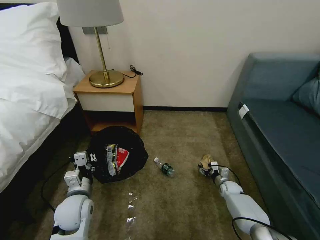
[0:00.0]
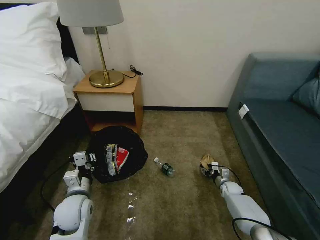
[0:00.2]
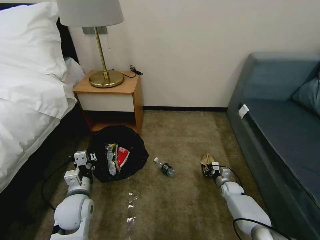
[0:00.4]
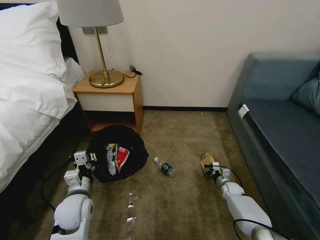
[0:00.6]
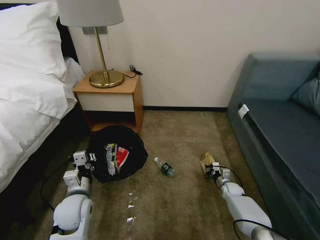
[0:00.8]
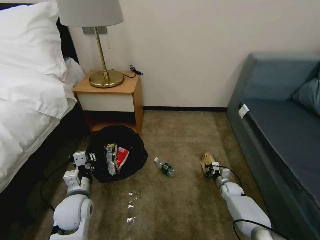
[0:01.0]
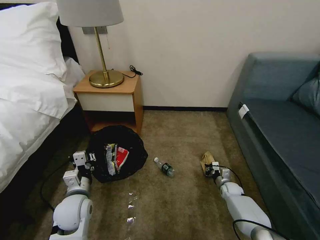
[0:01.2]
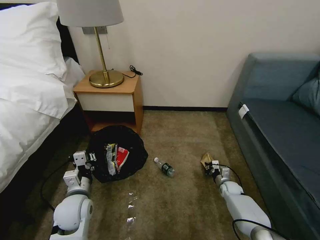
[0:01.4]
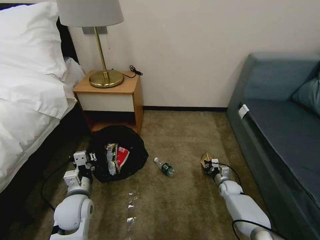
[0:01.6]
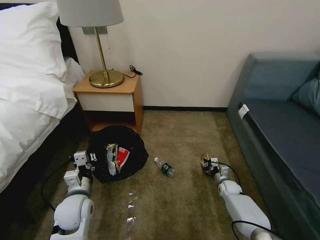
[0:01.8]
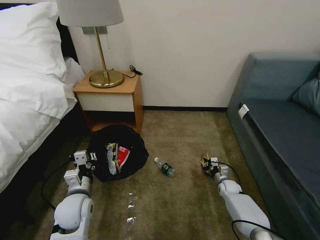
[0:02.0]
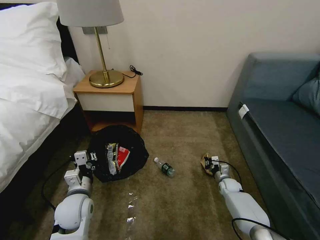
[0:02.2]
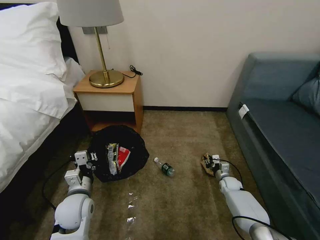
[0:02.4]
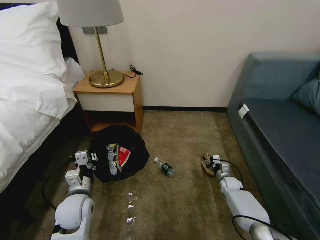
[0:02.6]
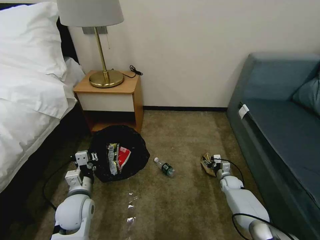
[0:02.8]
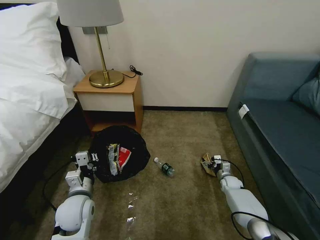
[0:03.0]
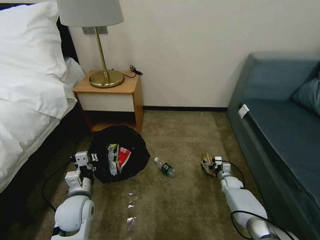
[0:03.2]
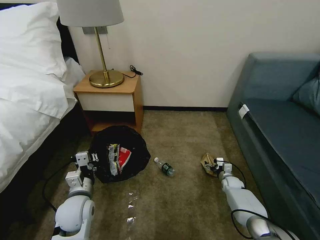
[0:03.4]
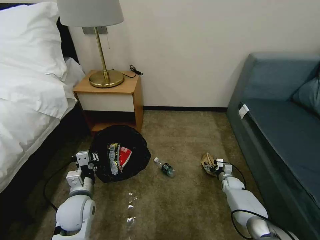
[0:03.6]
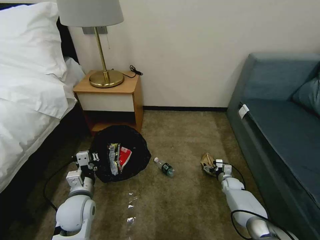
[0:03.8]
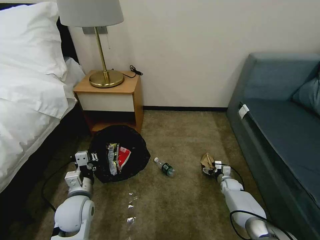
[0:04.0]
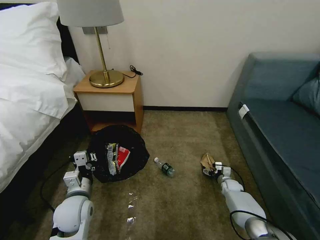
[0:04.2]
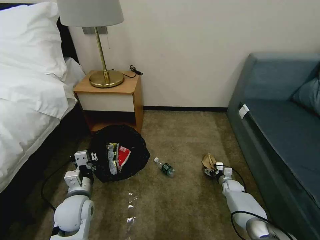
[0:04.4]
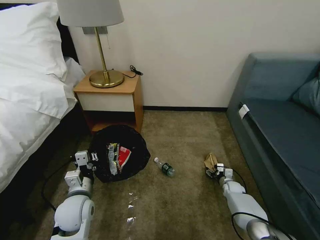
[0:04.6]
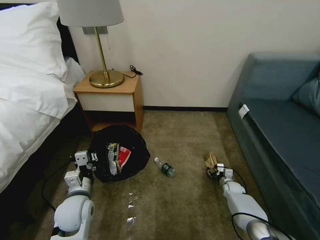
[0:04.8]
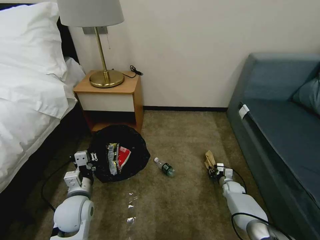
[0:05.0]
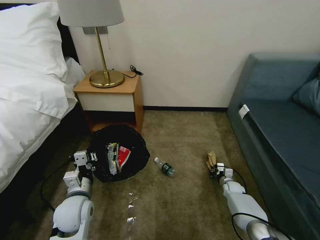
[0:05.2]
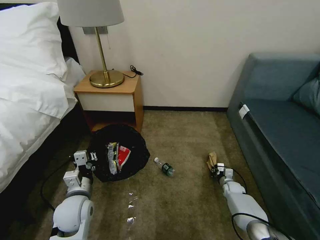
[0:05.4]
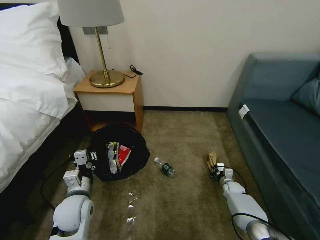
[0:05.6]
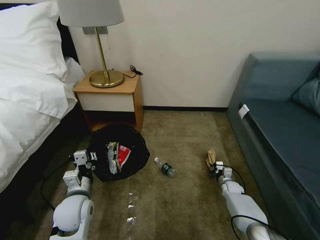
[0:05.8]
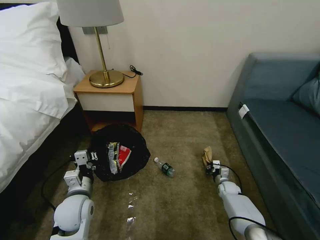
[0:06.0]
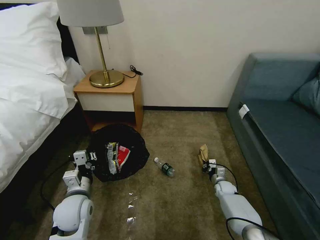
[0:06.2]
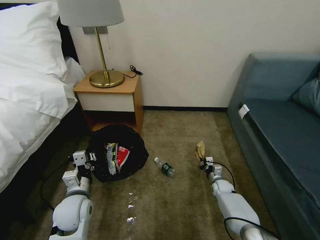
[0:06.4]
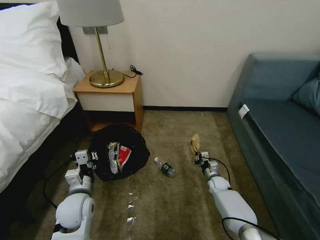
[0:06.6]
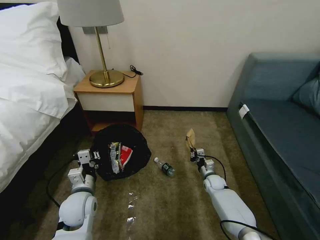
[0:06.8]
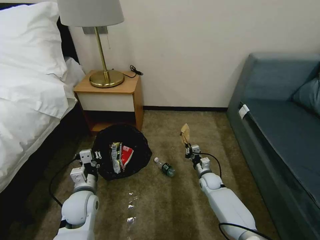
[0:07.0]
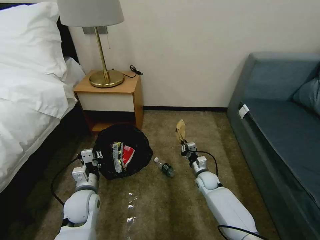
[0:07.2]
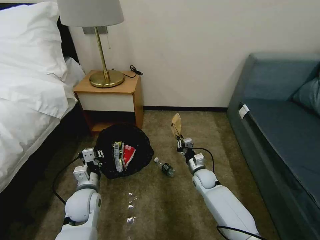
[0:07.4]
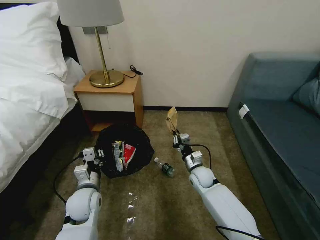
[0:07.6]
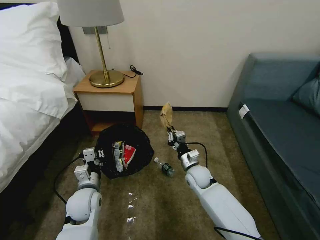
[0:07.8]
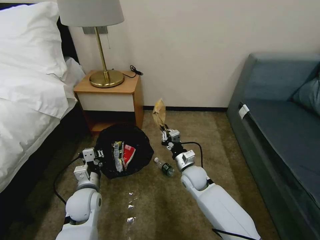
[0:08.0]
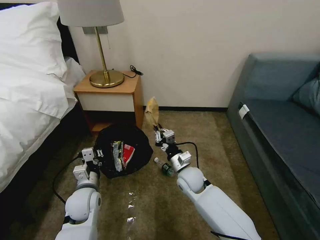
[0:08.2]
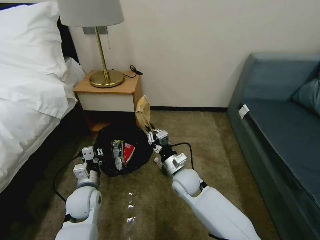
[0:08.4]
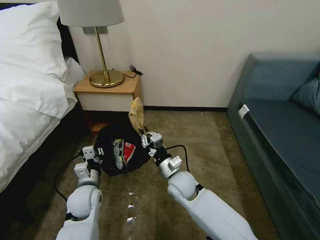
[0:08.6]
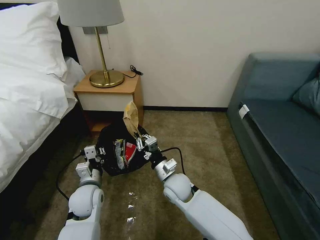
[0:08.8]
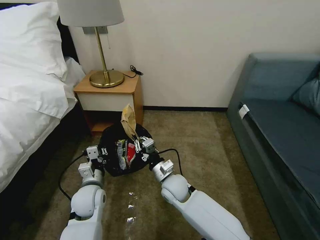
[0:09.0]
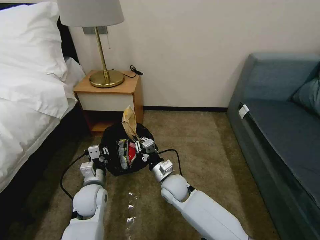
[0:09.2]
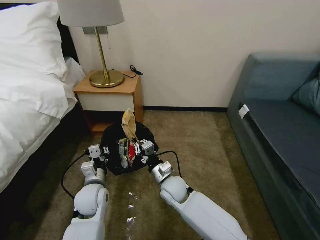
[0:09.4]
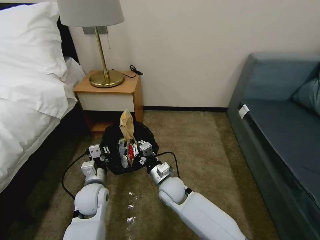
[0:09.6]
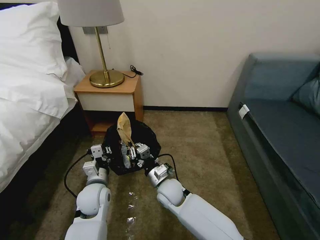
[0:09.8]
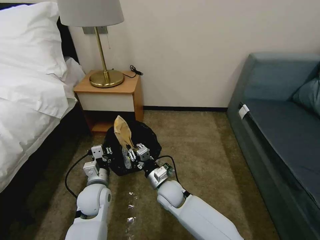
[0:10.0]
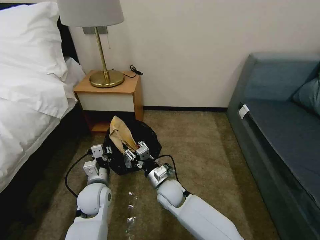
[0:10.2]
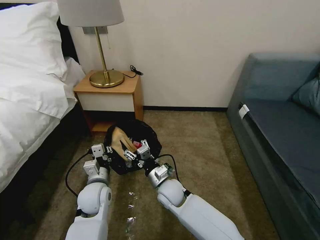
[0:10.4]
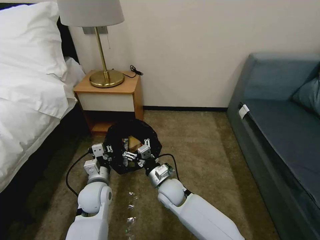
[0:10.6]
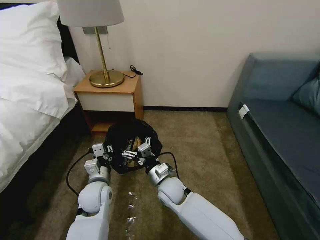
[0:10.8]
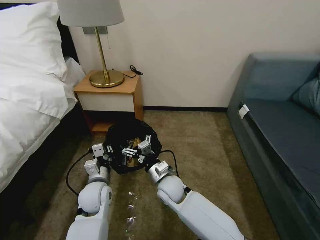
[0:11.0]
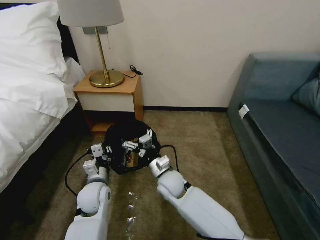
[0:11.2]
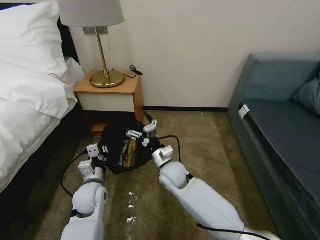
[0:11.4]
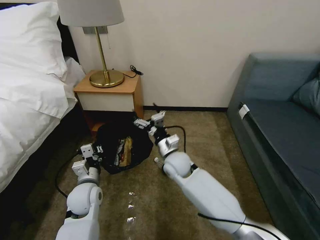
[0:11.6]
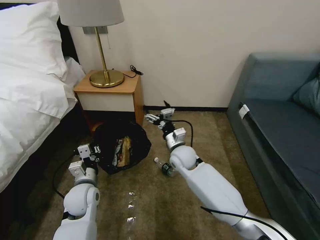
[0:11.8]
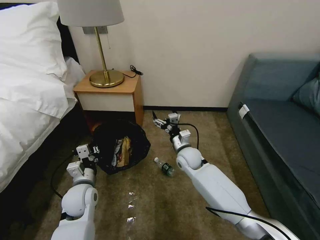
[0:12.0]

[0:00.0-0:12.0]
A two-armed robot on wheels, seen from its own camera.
Task of the whole recording: Pick up the trash bin, then pick up the garbage on the floor and place it into the trash bin.
0:00.0 to 0:01.6: The right gripper closes up.
0:01.6 to 0:03.0: The right gripper opens up.
0:03.0 to 0:04.4: The grippers make only small movements.
0:04.4 to 0:06.0: The right gripper closes up.
0:06.0 to 0:07.6: The right gripper moves to the left and upward, roughly 20 cm.
0:07.6 to 0:09.0: The right gripper travels to the left, backward and upward by roughly 15 cm.
0:09.0 to 0:10.4: The right gripper opens up.
0:10.4 to 0:12.0: The right gripper shifts roughly 15 cm forward and to the right.

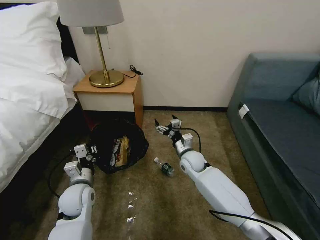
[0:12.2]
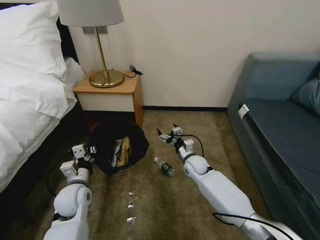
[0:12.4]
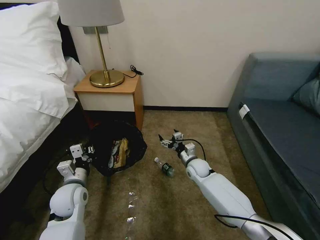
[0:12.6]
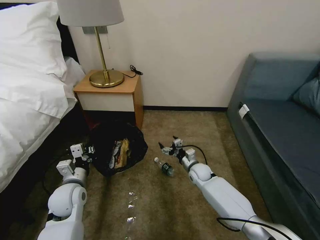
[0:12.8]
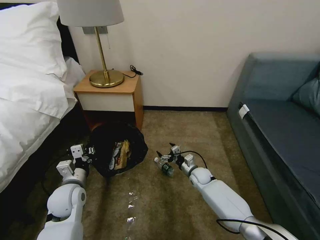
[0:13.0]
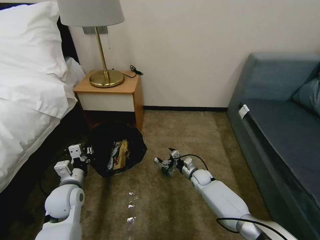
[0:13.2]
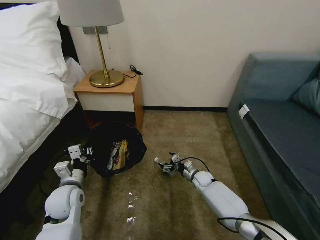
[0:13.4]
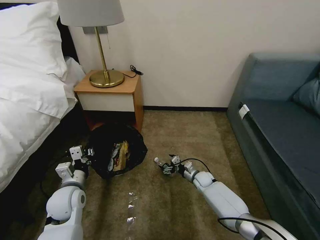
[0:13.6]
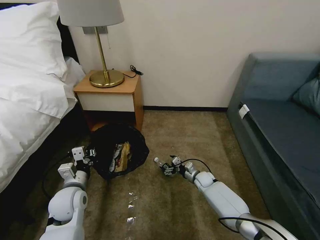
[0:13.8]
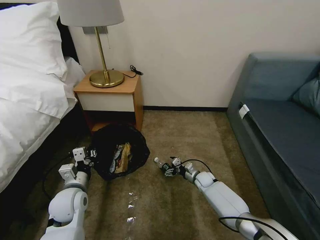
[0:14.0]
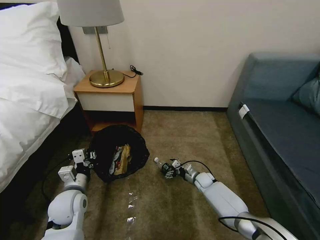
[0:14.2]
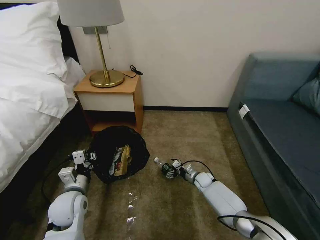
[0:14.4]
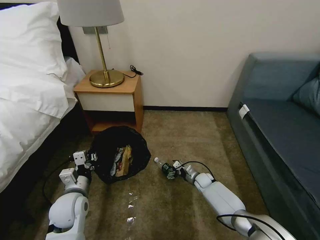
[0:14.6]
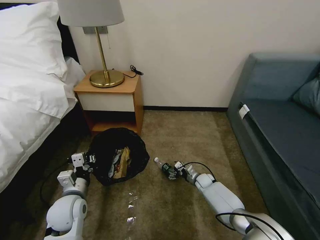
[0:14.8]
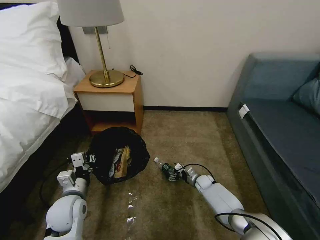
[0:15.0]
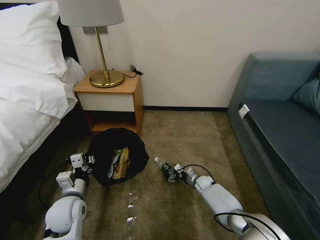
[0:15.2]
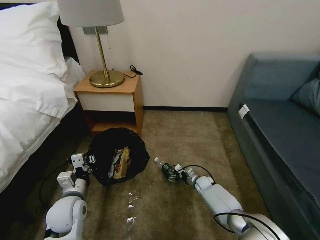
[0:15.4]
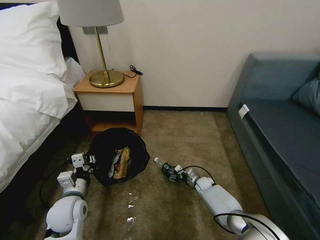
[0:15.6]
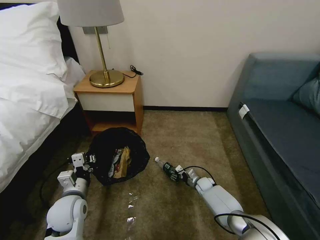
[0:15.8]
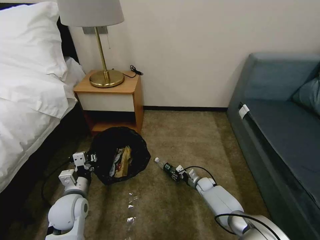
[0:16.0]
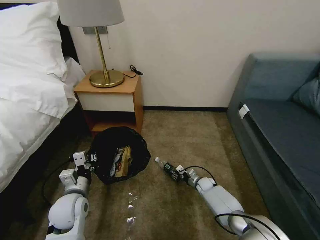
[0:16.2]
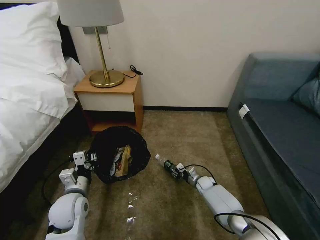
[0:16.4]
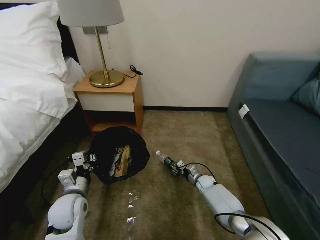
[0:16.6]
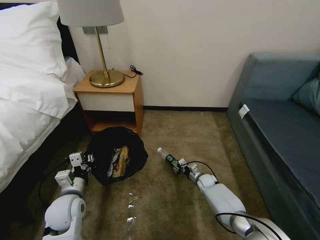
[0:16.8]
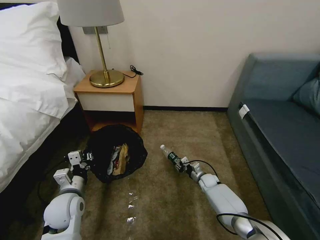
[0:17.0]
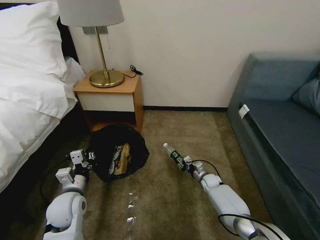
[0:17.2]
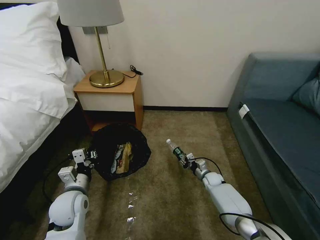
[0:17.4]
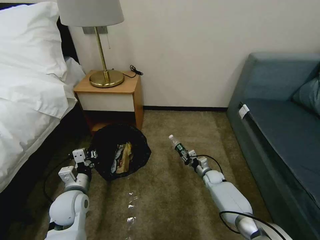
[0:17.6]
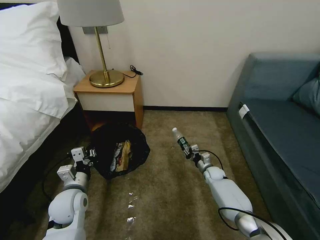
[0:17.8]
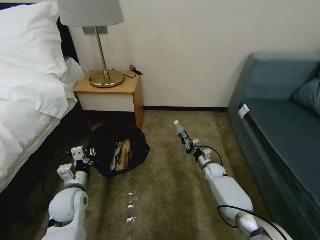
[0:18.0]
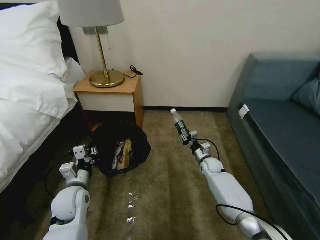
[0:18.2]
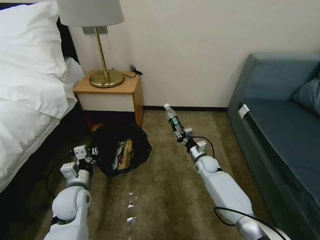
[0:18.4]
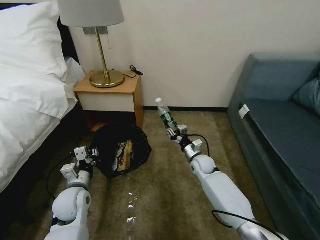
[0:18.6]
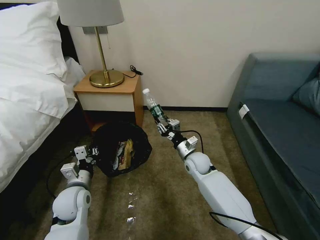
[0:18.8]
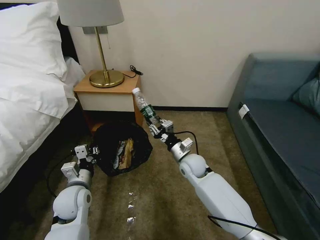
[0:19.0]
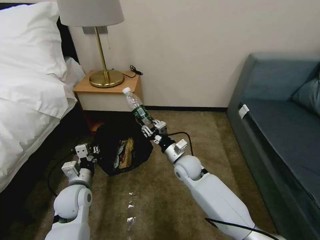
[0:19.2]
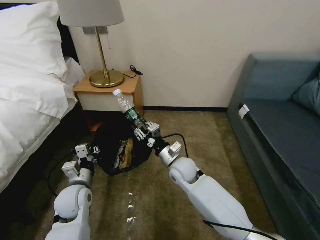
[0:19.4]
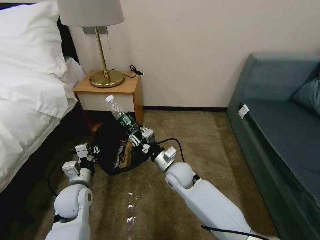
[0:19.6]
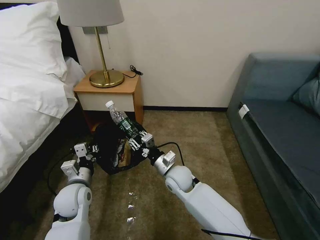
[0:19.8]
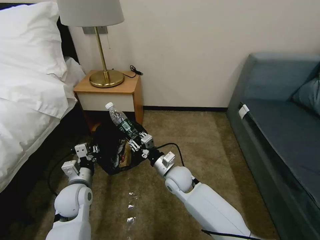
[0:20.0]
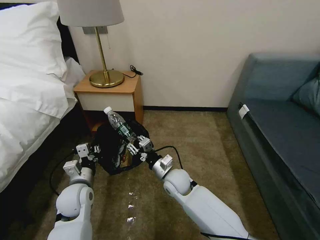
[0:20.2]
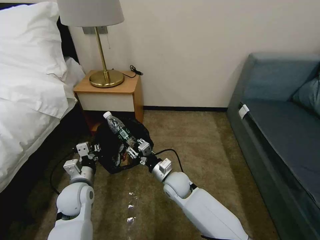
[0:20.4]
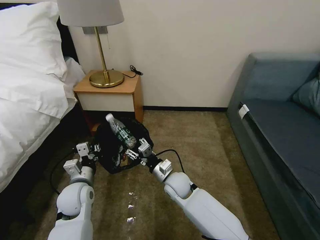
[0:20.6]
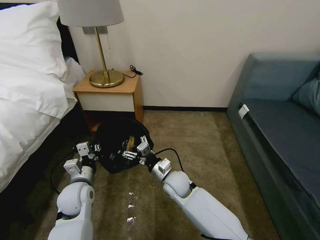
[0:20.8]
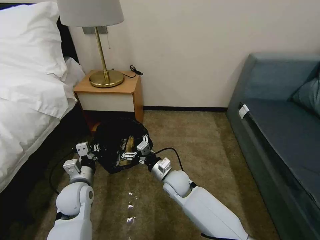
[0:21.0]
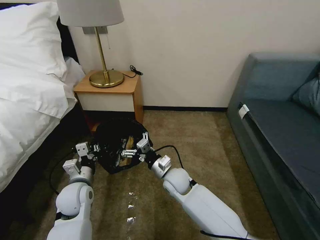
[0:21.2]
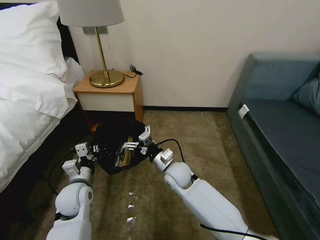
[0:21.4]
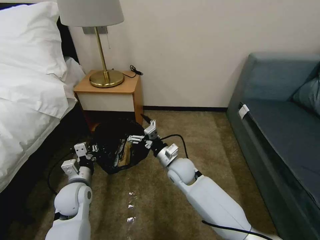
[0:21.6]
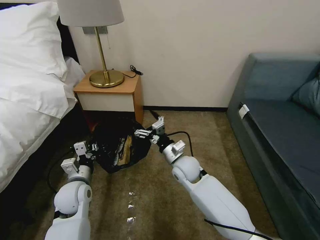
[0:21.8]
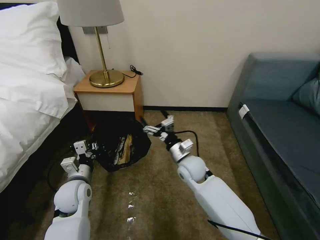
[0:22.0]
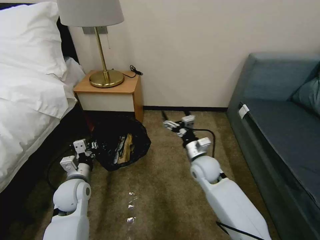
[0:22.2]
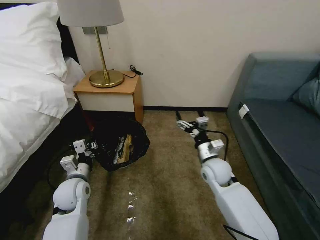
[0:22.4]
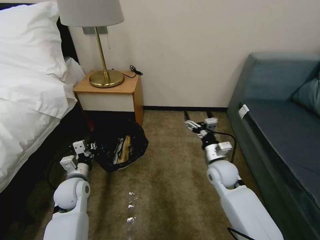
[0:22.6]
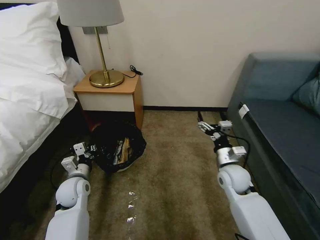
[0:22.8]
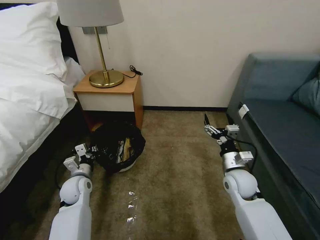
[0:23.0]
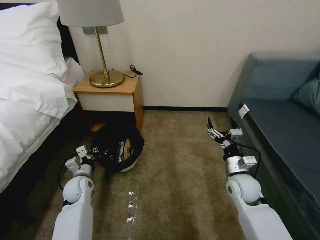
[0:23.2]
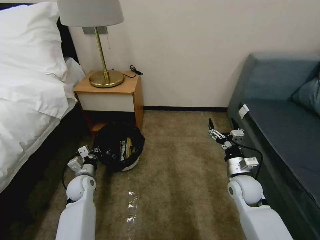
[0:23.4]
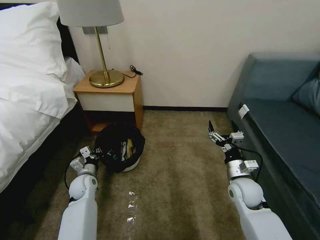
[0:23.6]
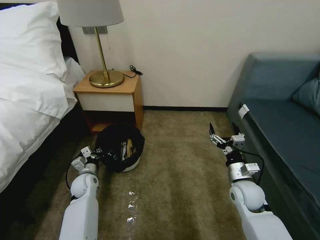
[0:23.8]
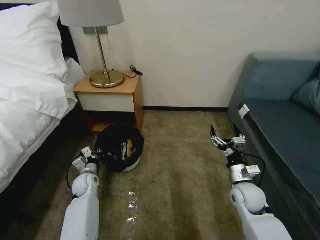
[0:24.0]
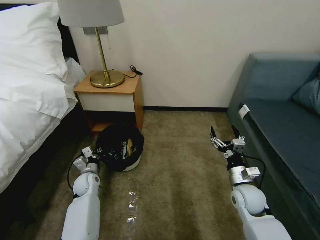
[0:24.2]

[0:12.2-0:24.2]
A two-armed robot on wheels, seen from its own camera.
Task of the whole recording: Pick up the trash bin, then pick up the garbage on the floor and place it into the trash bin.
0:12.2 to 0:13.8: The right gripper moves downward and to the right, roughly 20 cm.
0:13.8 to 0:15.2: The grippers move only a little.
0:15.2 to 0:16.6: The right gripper closes.
0:16.6 to 0:18.2: The right gripper shifts approximately 10 cm upward.
0:18.2 to 0:19.8: The right gripper shifts approximately 25 cm to the left, backward and upward.
0:19.8 to 0:21.2: The right gripper opens its fingers.
0:21.2 to 0:22.6: The right gripper heads to the right, covering roughly 15 cm.
0:22.6 to 0:24.2: The left gripper heads downward and forward, covering approximately 15 cm. Meanwhile the right gripper is displaced to the right and backward by some 10 cm.
